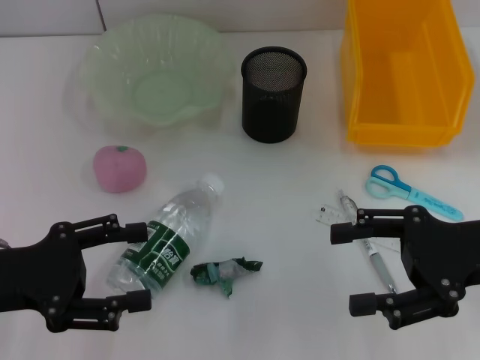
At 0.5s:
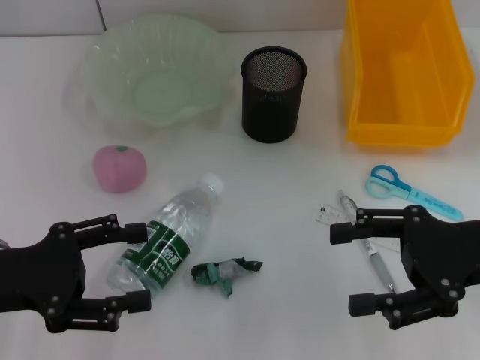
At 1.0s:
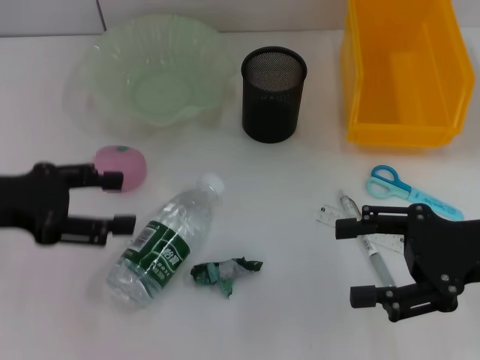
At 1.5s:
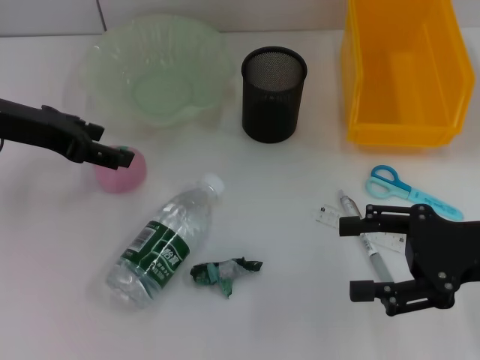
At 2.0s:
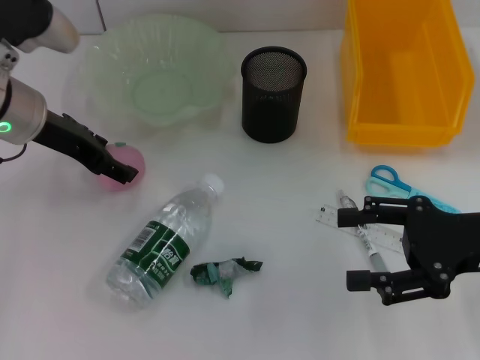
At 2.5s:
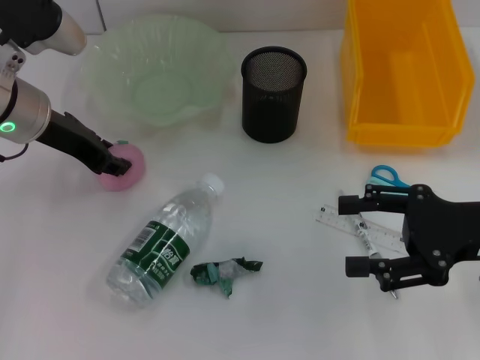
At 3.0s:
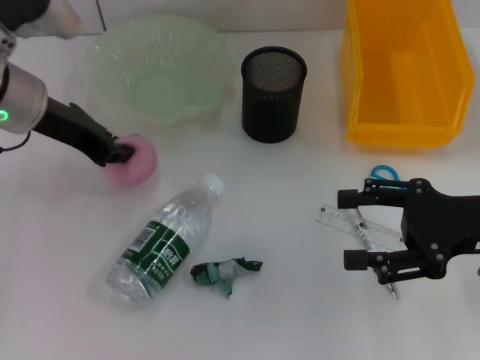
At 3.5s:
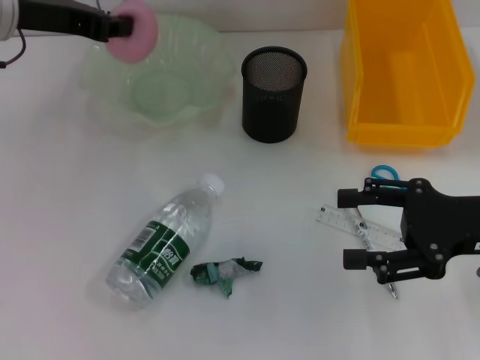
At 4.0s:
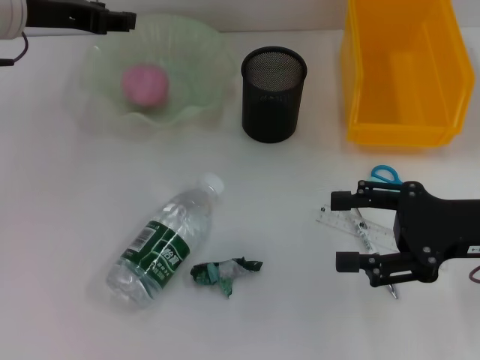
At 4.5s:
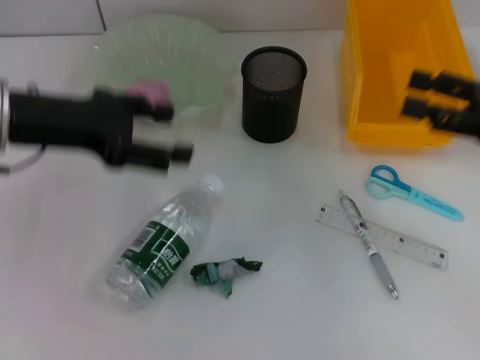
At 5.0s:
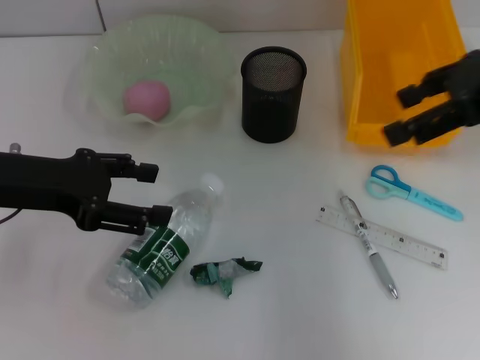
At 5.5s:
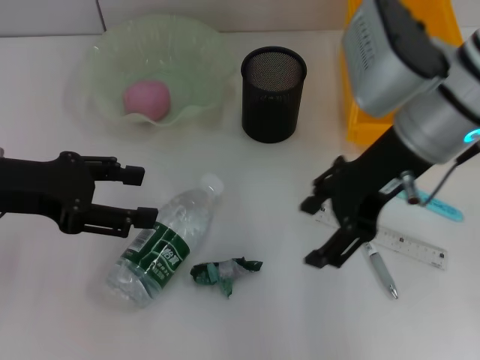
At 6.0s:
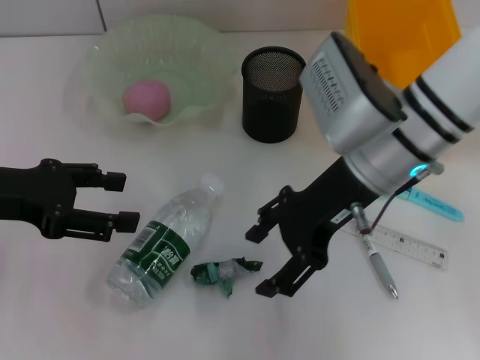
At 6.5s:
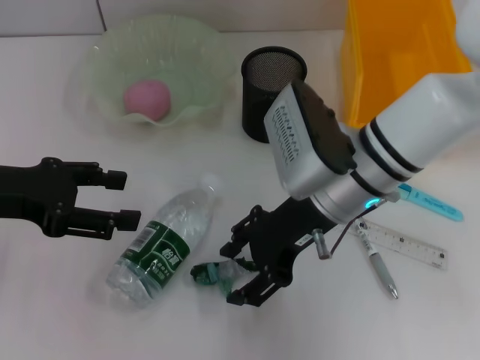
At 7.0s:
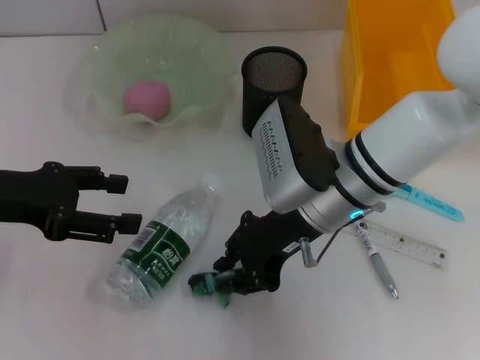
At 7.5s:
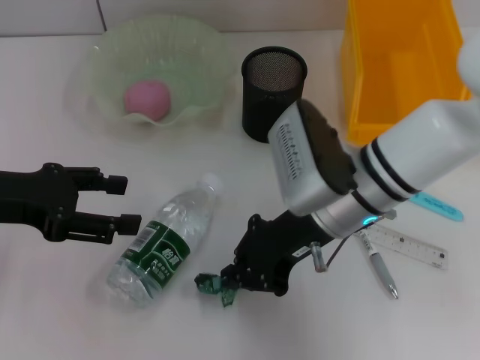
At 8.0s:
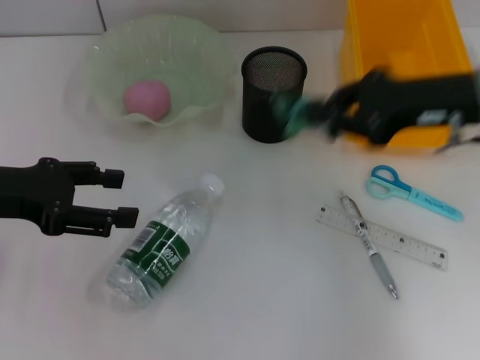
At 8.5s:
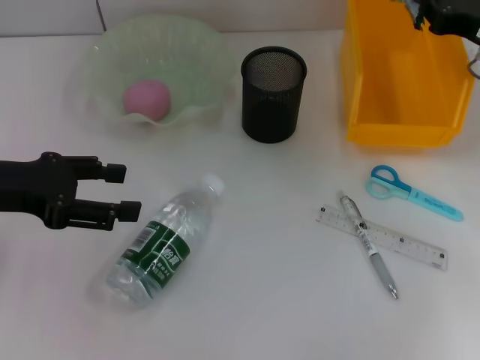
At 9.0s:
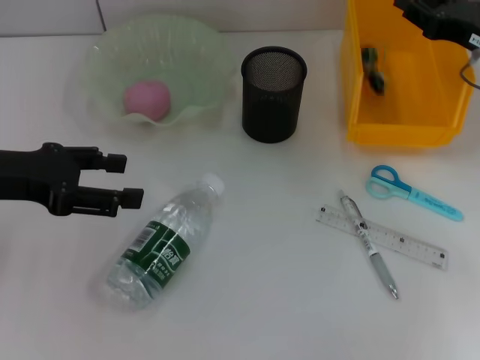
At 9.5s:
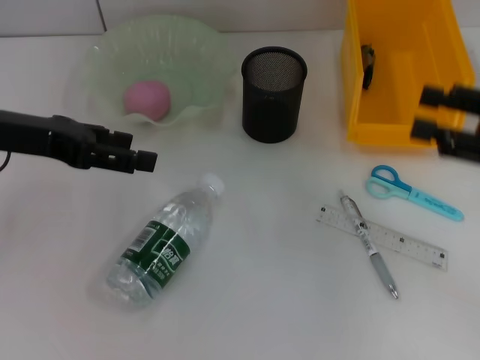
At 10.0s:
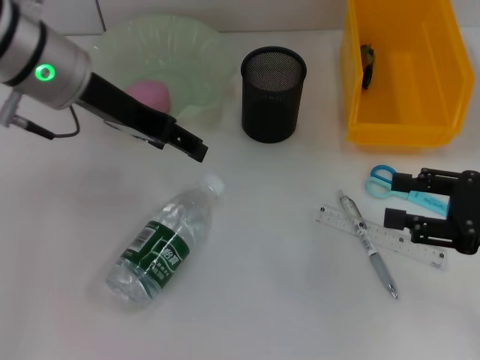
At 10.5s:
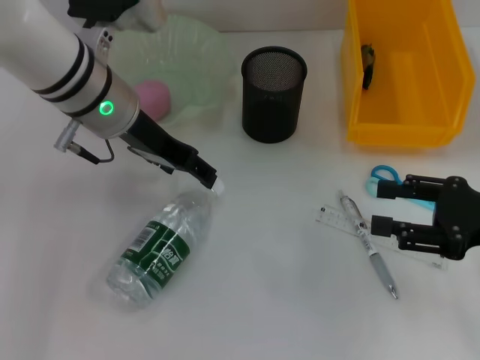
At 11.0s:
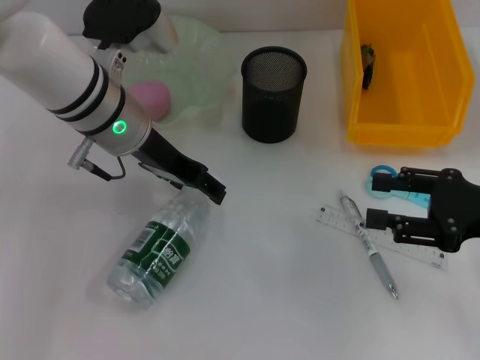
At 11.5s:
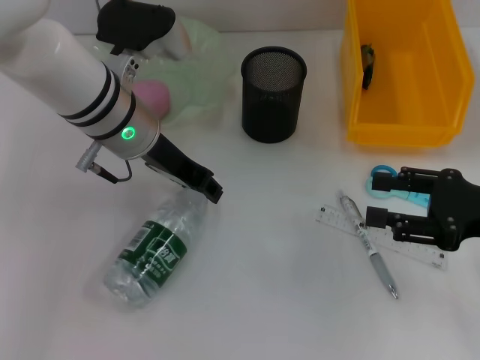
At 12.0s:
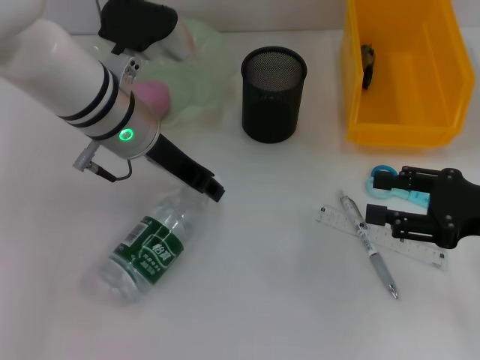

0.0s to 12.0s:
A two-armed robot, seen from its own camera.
Step, 0.0s to 2.0s: Grab the peach with the left hand.
Step, 2.5s to 4.0s: Place the peach into the fruit bowl with the left hand.
Step, 4.5s to 7.0s: Grab the plastic with the right hand.
Step, 7.5s to 9.0s: Place the plastic into the trash can with the right hand.
Step, 9.5s to 11.5s: Grab the water bottle with the left hand.
0.0s to 2.0s: The left gripper travels forward and to the right by approximately 15 cm.
2.0s to 4.0s: The left gripper goes some 5 cm upward, and closes.
4.0s to 6.0s: The right gripper travels to the left and forward by roughly 15 cm. The left gripper is displaced backward and to the left by about 15 cm, and opens.
6.0s to 8.0s: The right gripper moves to the right, some 15 cm, and closes its fingers.
8.0s to 10.0s: The left gripper travels to the right, forward and upward by approximately 15 cm. The right gripper moves backward, downward and to the right, some 15 cm, and opens its fingers.
10.0s to 12.0s: The left gripper is displaced downward by about 5 cm, and closes up.

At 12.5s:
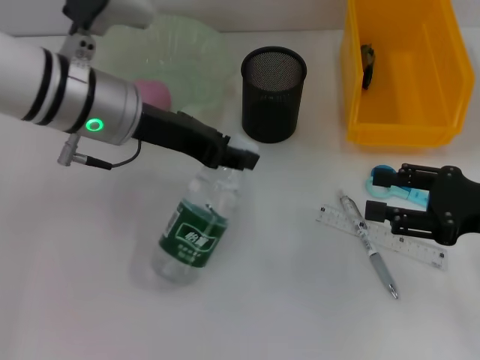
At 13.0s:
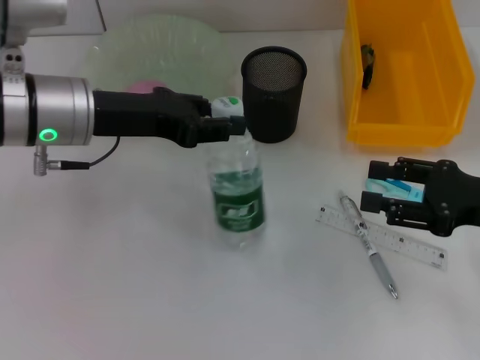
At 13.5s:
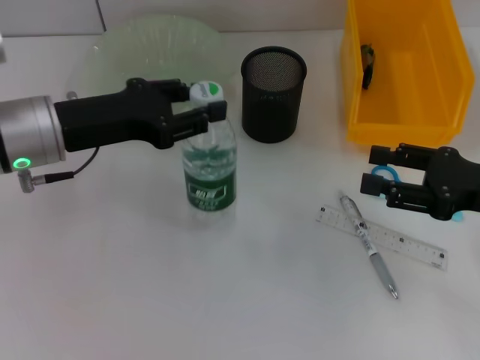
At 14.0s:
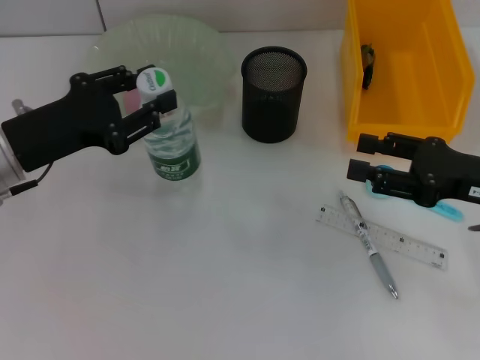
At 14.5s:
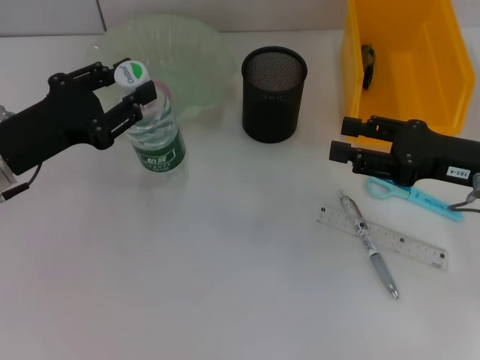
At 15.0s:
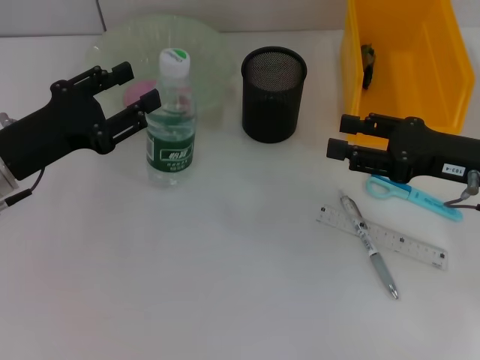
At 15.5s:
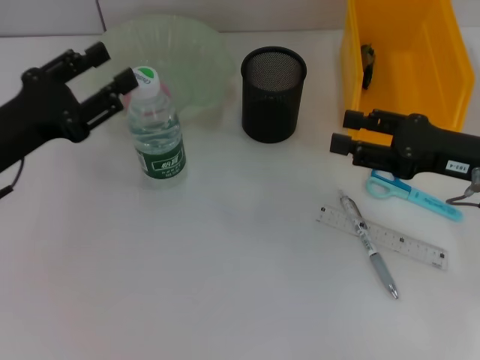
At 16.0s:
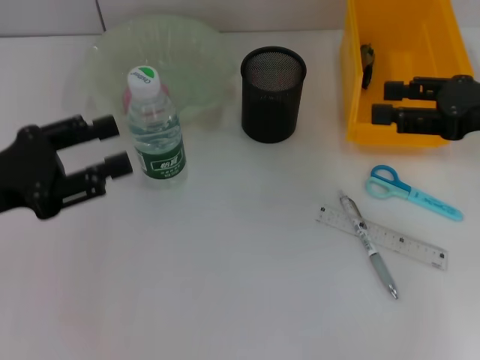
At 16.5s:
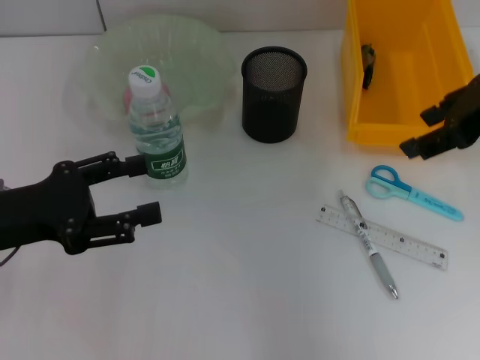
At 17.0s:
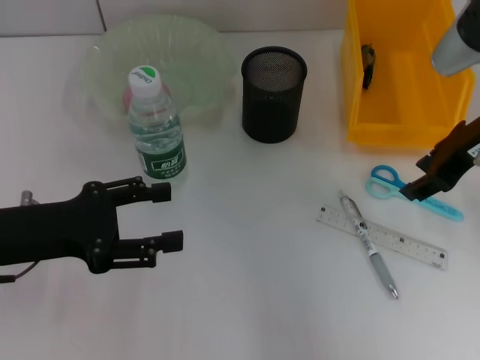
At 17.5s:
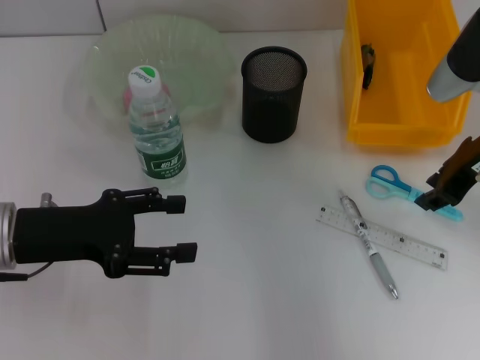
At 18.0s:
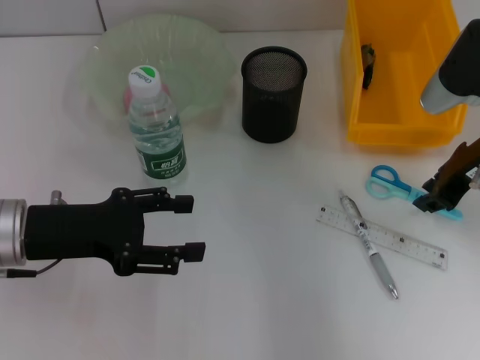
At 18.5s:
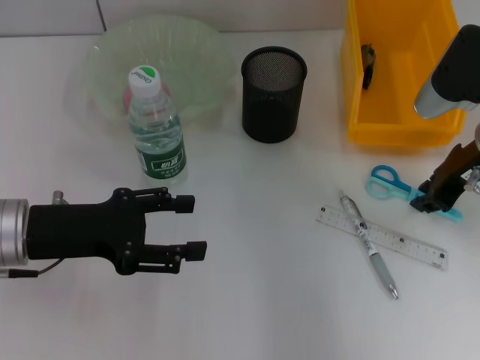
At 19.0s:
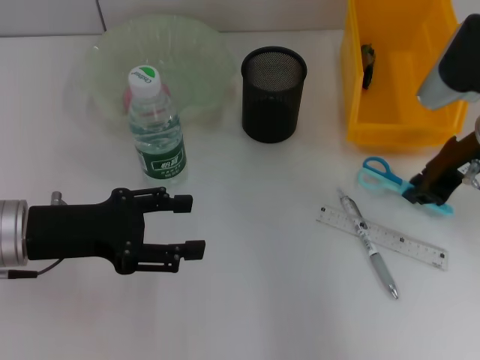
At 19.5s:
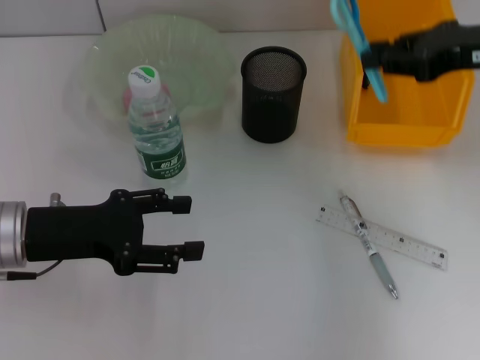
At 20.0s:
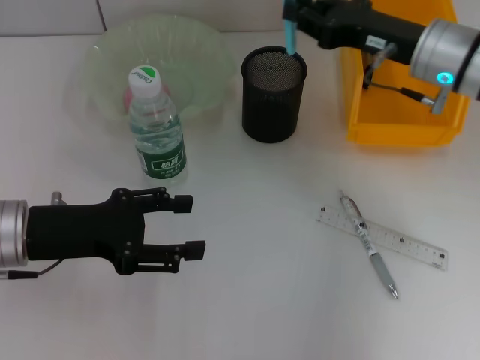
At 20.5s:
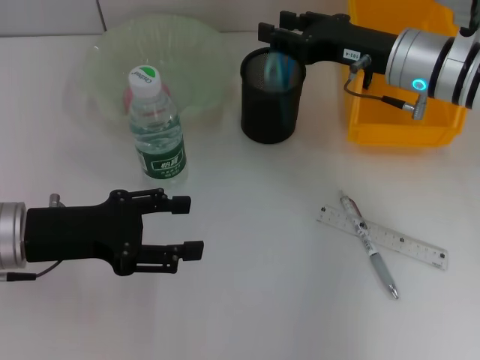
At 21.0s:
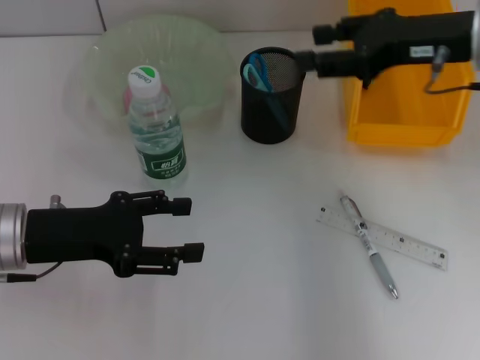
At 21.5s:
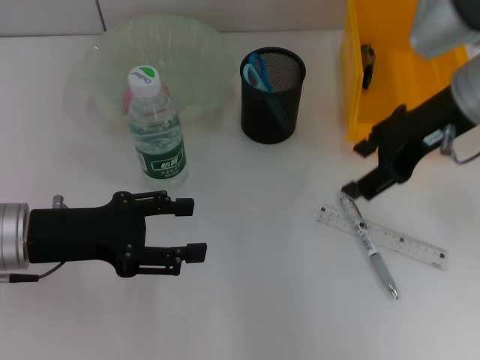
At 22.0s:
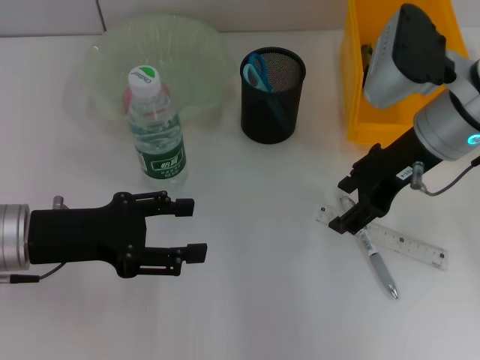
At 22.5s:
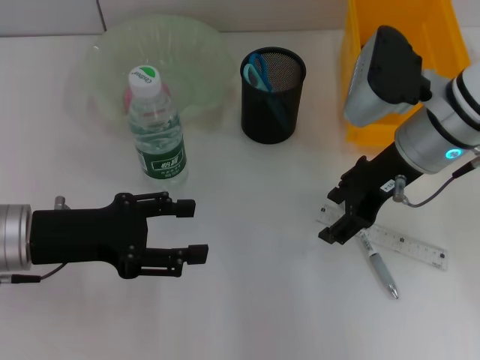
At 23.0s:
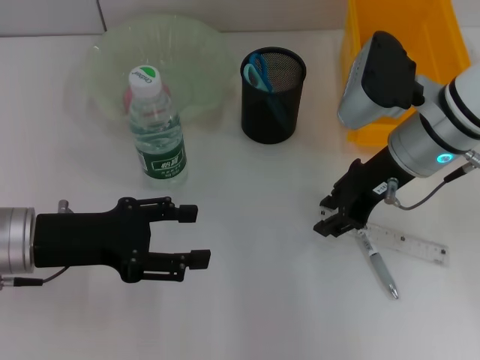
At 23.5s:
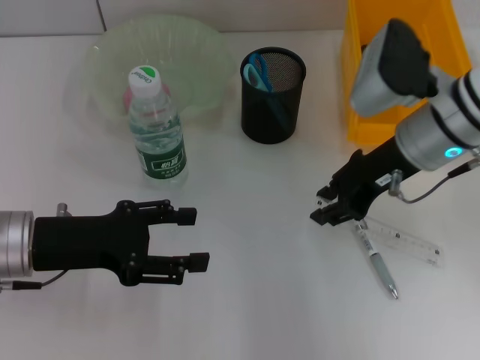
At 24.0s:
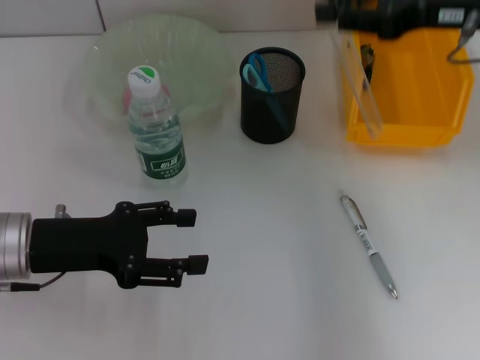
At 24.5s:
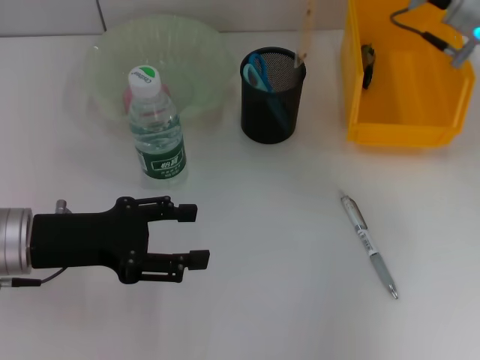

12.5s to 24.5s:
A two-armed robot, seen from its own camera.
Step, 12.5s to 15.5s: Place the water bottle on the table with the left hand.
Step, 16.0s to 18.0s: Grab the blue scissors with the right hand.
Step, 18.5s to 20.5s: Place the blue scissors into the pen holder with the right hand.
Step, 21.0s to 23.5s: Grab the ruler with the right hand.
12.5s to 14.5s: The left gripper moves to the left, downward and backward, about 15 cm, while the right gripper shifts by approximately 5 cm.
14.5s to 16.5s: The left gripper ends up approximately 5 cm from where it was, and opens. The right gripper heads upward, covering about 15 cm.
16.5s to 18.5s: The right gripper travels downward by approximately 10 cm, and closes its fingers.
18.5s to 20.5s: The right gripper goes roughly 5 cm to the left.
20.5s to 22.5s: The right gripper reaches about 10 cm upward, then returns, and opens its fingers.
22.5s to 24.5s: The right gripper closes up.

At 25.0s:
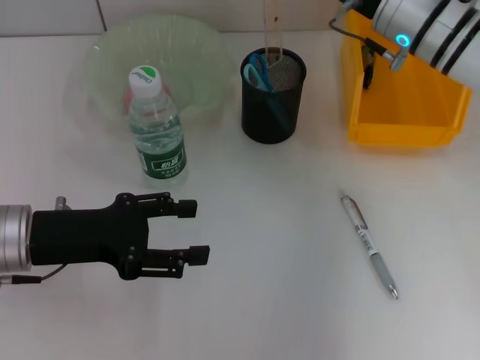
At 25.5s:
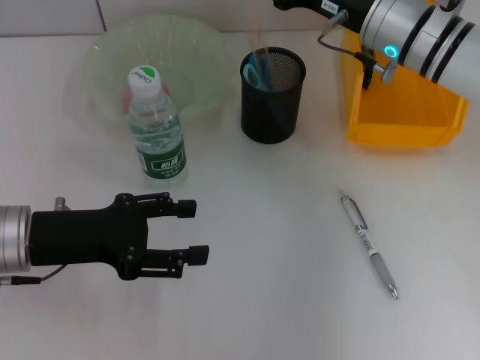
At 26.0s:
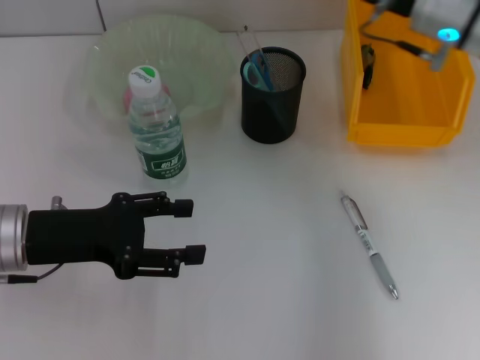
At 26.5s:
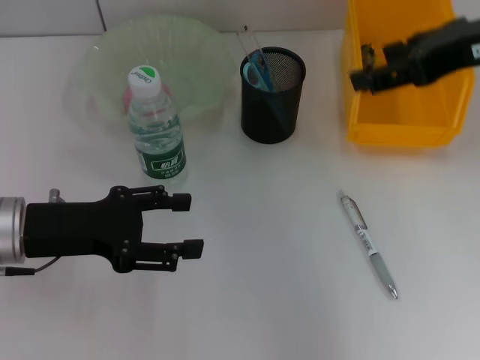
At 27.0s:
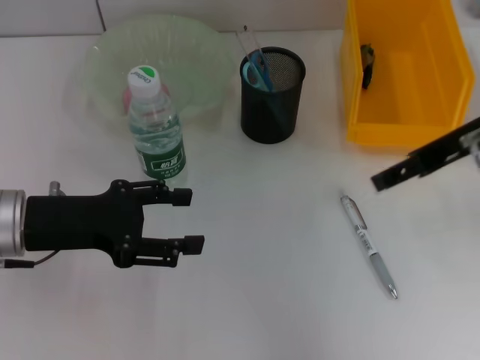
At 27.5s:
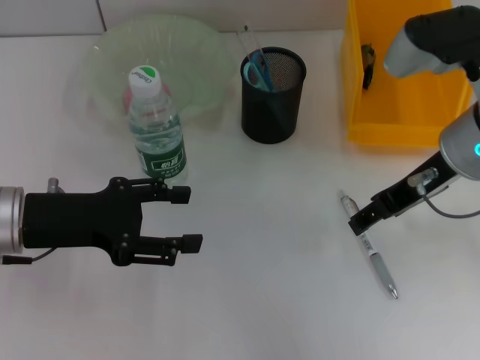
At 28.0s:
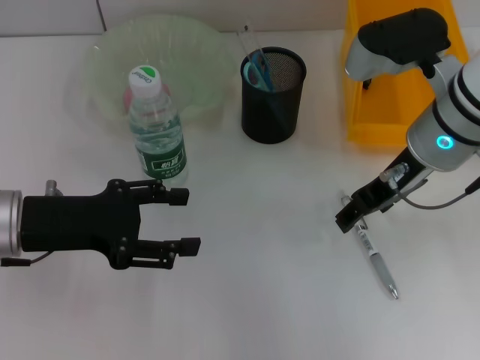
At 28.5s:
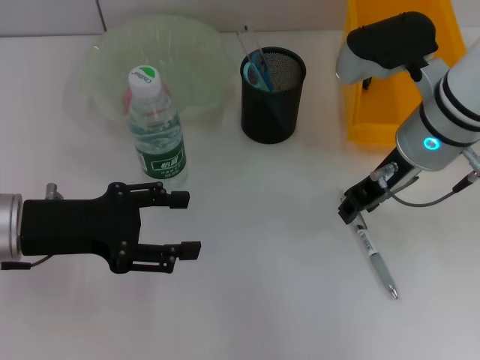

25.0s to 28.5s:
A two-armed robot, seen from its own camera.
25.0s to 27.0s: The right gripper moves backward, to the right and upward, about 15 cm, and opens.
27.0s to 28.5s: The right gripper travels to the left and downward by roughly 10 cm.
